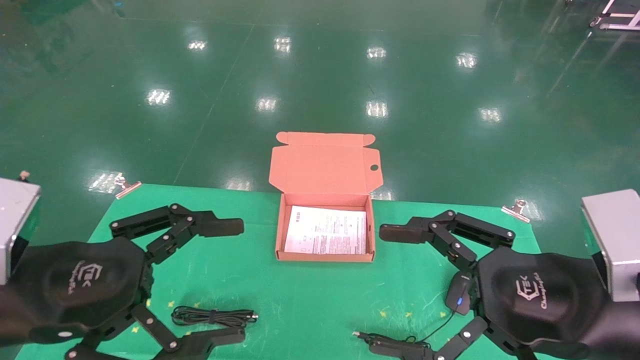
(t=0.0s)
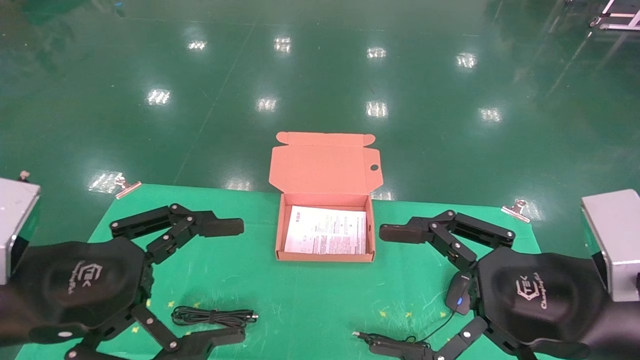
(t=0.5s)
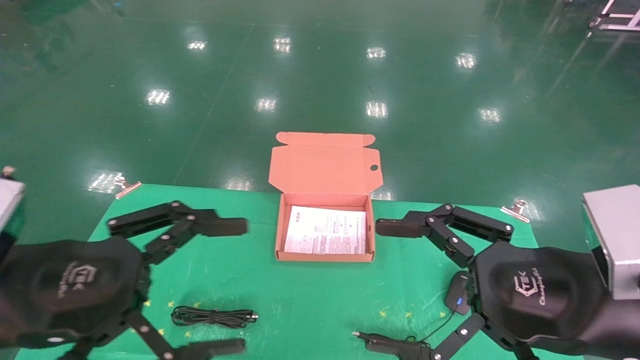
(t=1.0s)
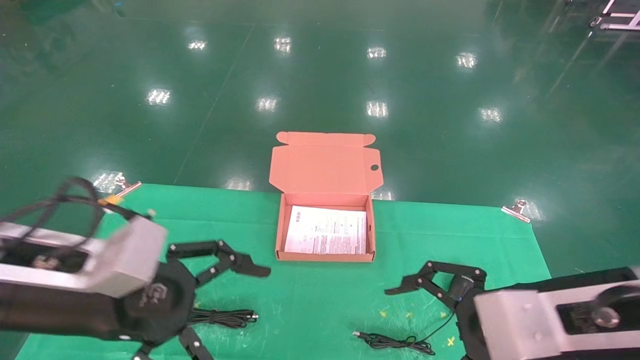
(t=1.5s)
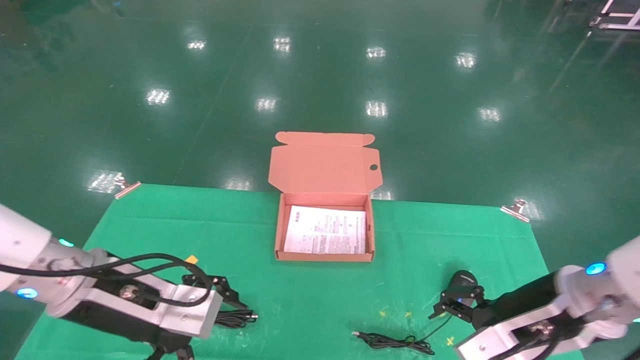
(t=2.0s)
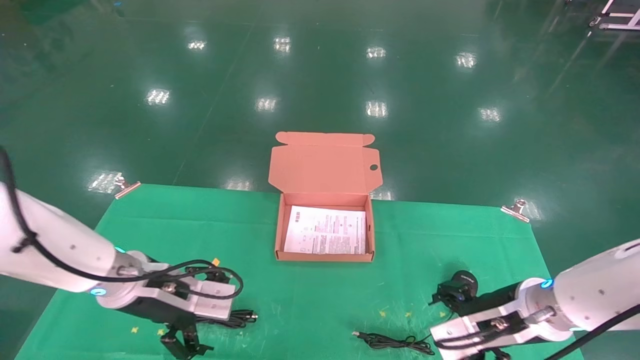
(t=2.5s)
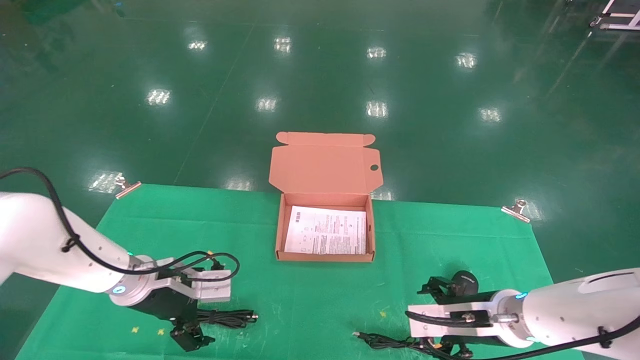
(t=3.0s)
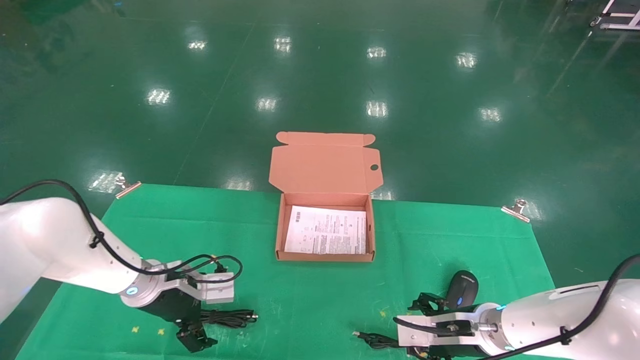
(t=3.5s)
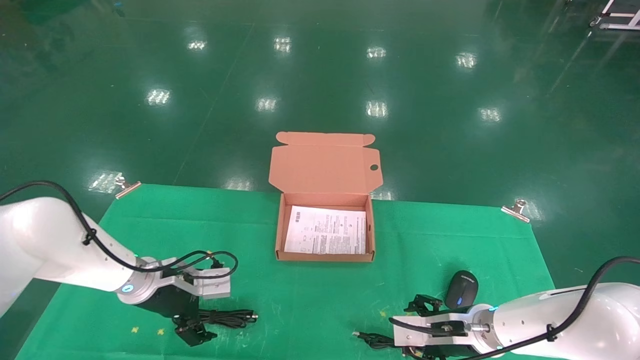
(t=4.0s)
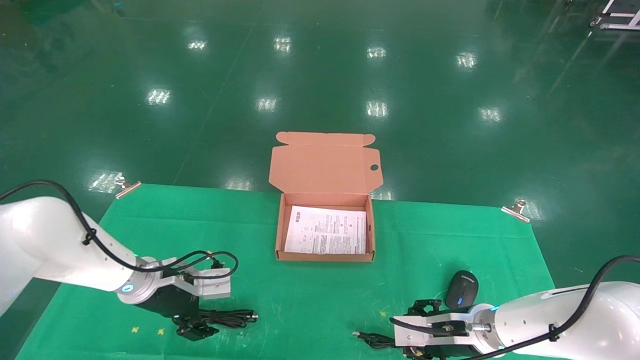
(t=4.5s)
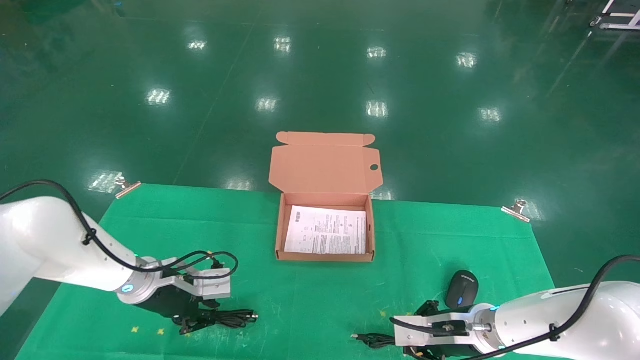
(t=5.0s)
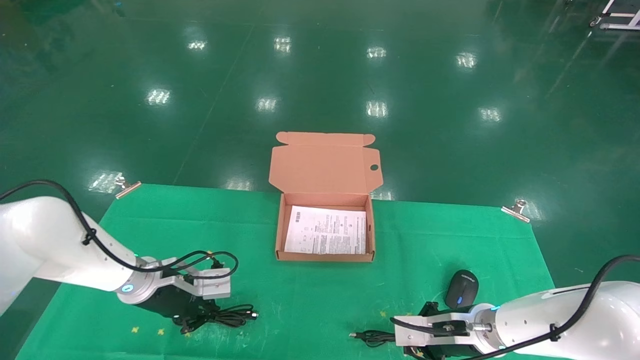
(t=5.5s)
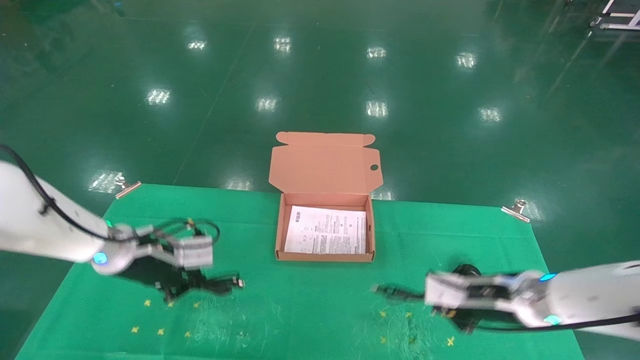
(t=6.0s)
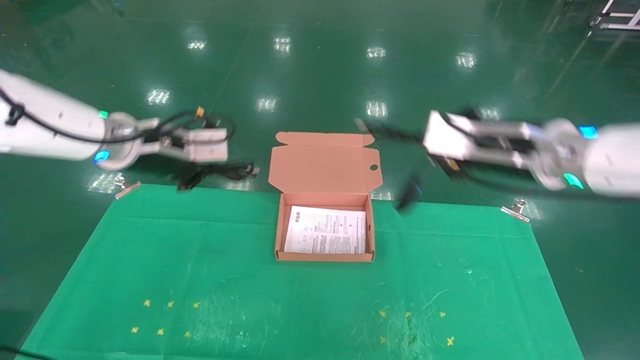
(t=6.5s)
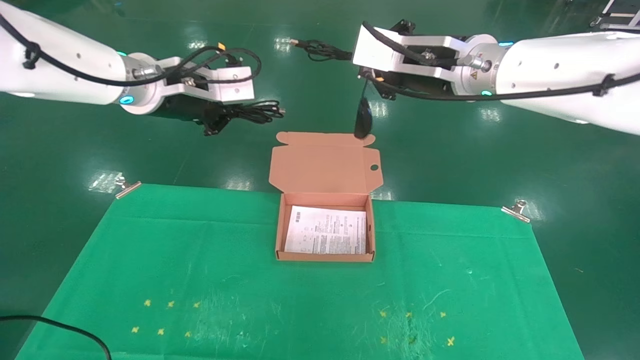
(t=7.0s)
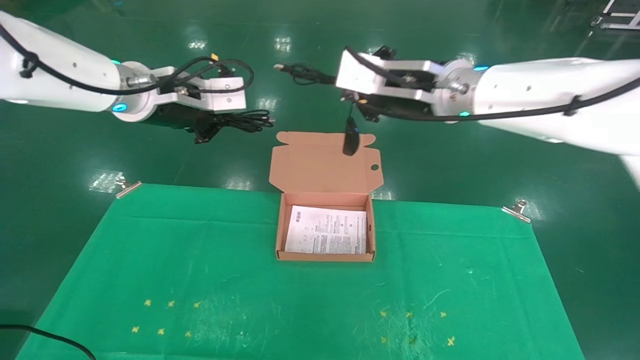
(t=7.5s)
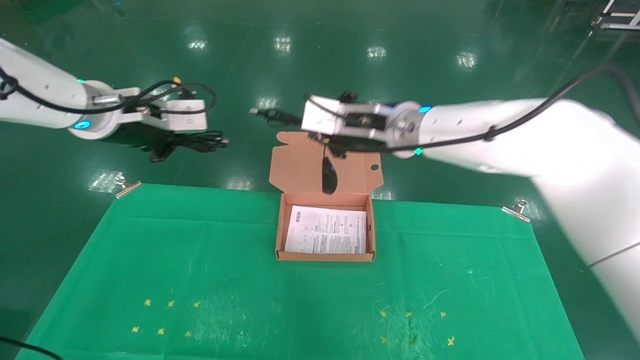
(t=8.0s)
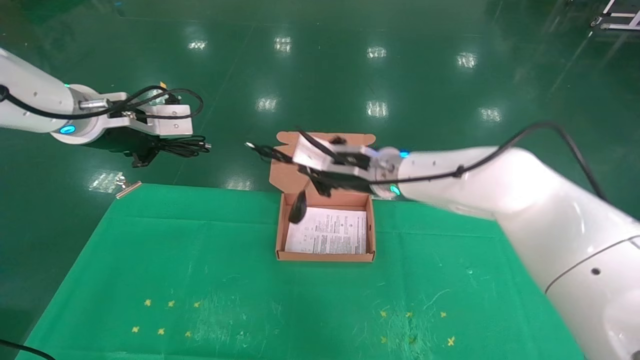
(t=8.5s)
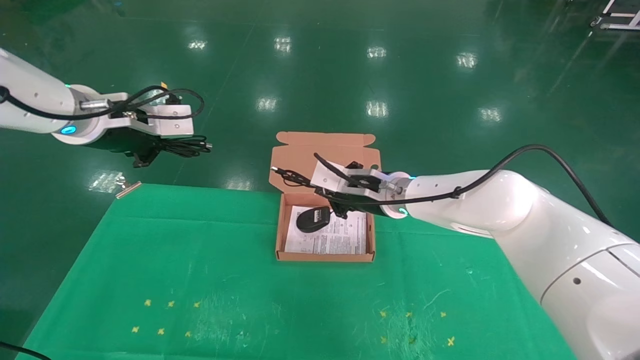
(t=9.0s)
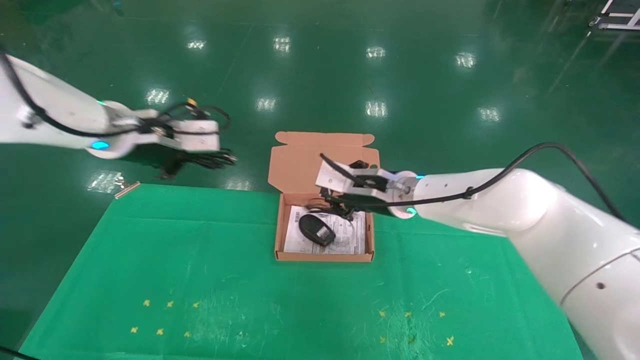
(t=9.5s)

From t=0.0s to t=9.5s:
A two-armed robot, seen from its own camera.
Task of the whole recording: grasp data cable left put into box grasp mouse right put into box.
Step, from t=1.0s to t=5.5s: Grab and pick up both the mouse and power cord from the accessory packaging area at the same time.
From t=0.0s to t=2.0s: The right gripper is displaced forward and downward by some 10 cm. Meanwhile the left gripper heads forward, covering about 10 cm.
From t=2.0s to t=4.0s: The right gripper shifts some 15 cm downward and forward; the left gripper goes some 15 cm forward and downward.
From t=4.0s to t=5.5s: The right gripper closes, while the left gripper closes.
From t=5.5s to t=7.5s: Both grippers move upward, roughly 30 cm.
From t=7.5s to t=9.5s: The left gripper shifts roughly 5 cm downward; the right gripper shifts some 15 cm downward and forward.

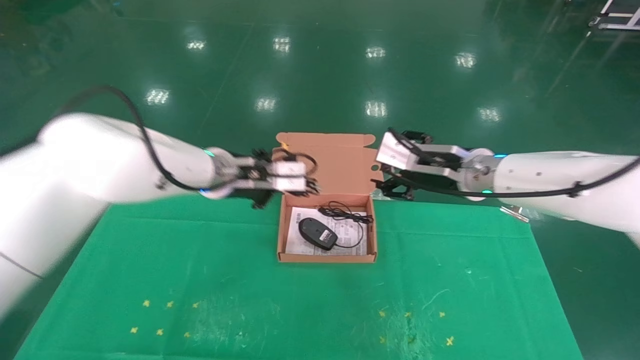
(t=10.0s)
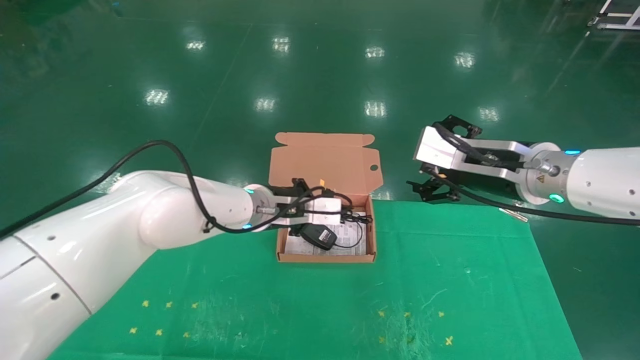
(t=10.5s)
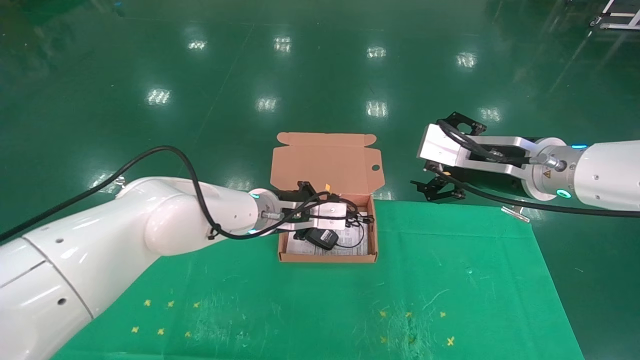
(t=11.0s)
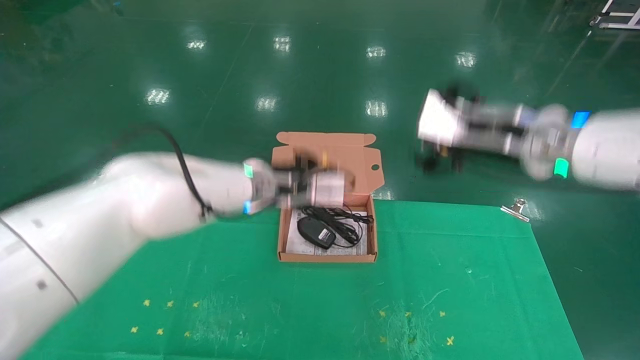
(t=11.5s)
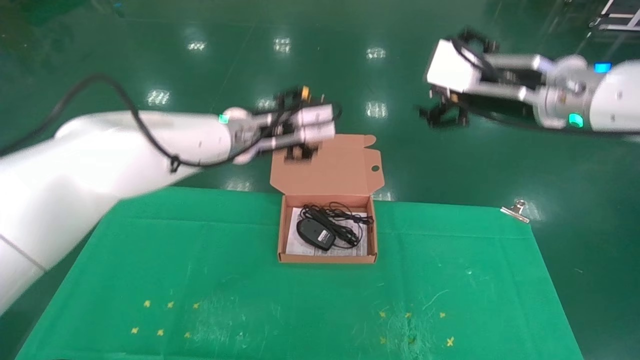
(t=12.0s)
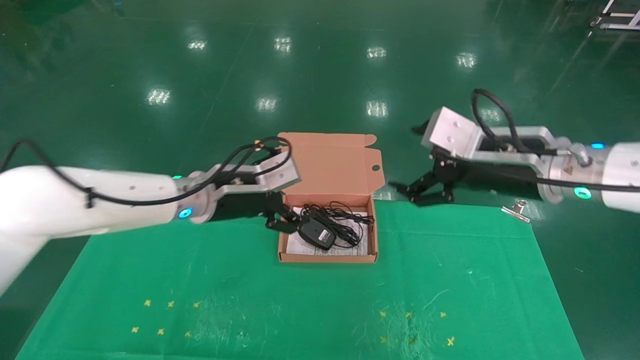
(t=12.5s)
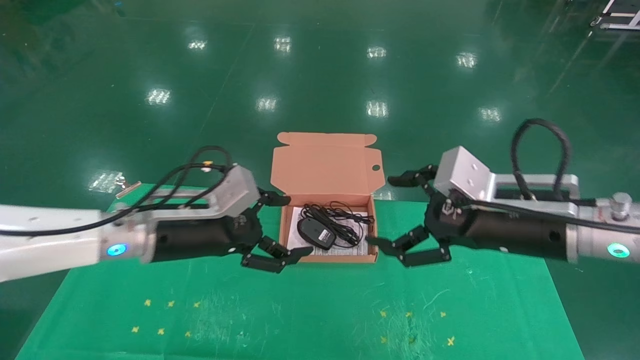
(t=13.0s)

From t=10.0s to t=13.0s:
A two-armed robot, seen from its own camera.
Task of the whole recording: grasp data cable left put into box grasp mouse right put into box.
Step, from t=10.0s to t=12.0s: Place the mouse and power cord into the box.
From t=10.0s to t=11.5s: The left gripper travels to the right by approximately 5 cm. The right gripper is displaced upward and backward by some 10 cm, and opens.
From t=11.5s to t=13.0s: The right gripper moves downward and backward, about 10 cm, while the left gripper shifts about 15 cm to the left and backward, and opens its fingers.
